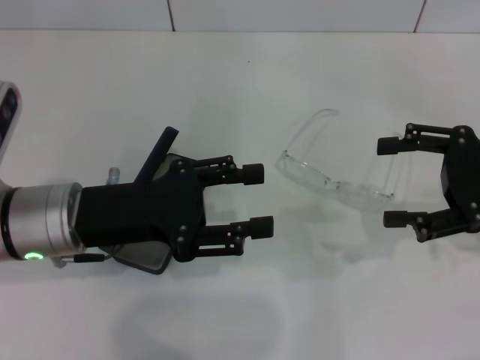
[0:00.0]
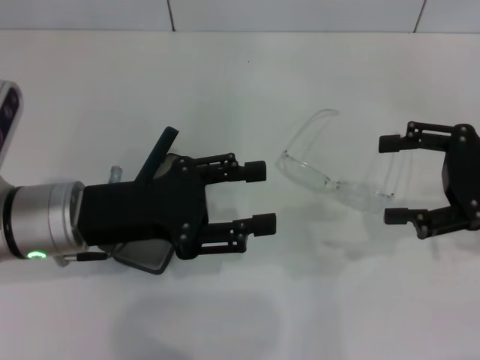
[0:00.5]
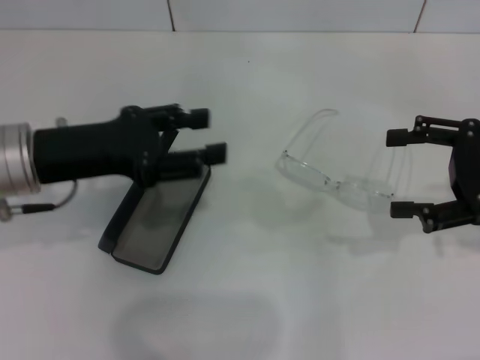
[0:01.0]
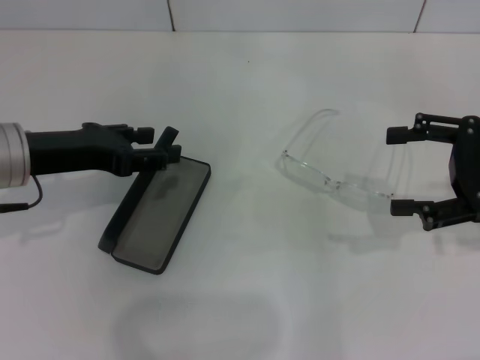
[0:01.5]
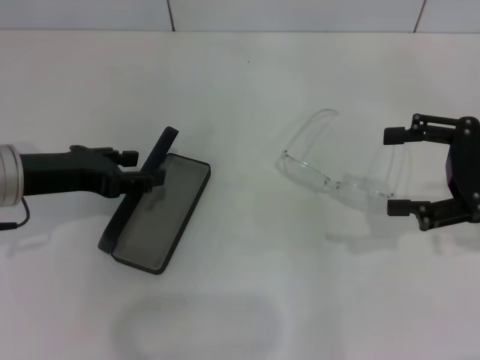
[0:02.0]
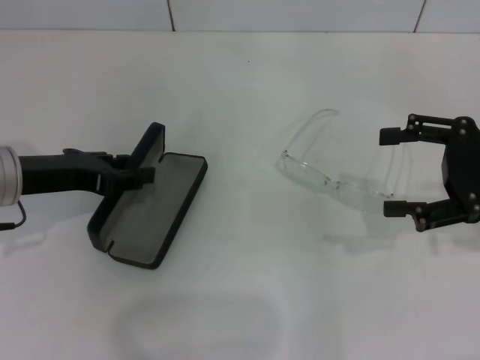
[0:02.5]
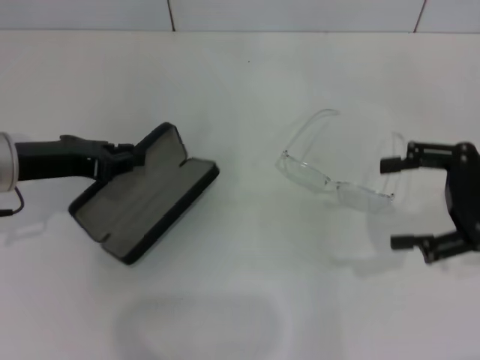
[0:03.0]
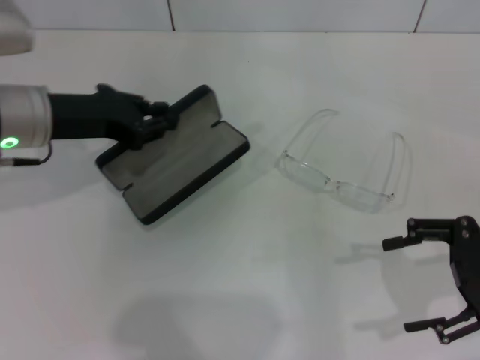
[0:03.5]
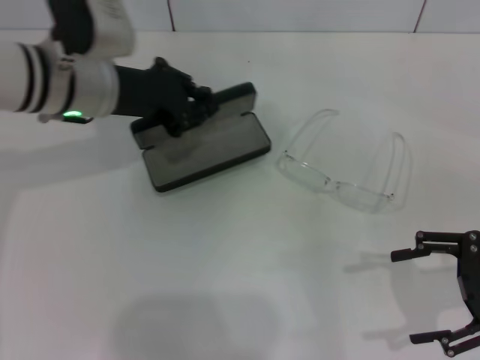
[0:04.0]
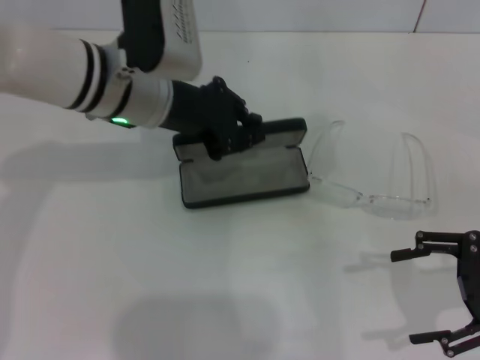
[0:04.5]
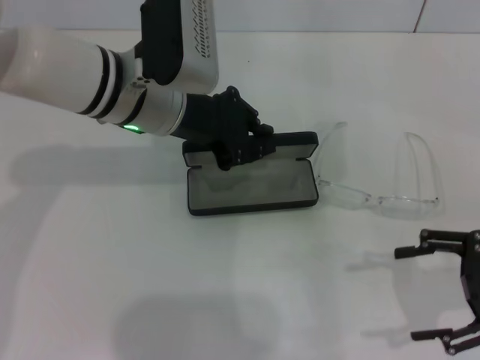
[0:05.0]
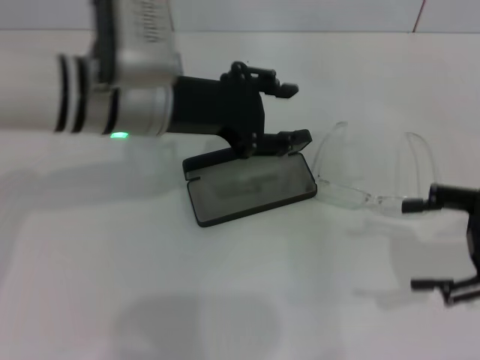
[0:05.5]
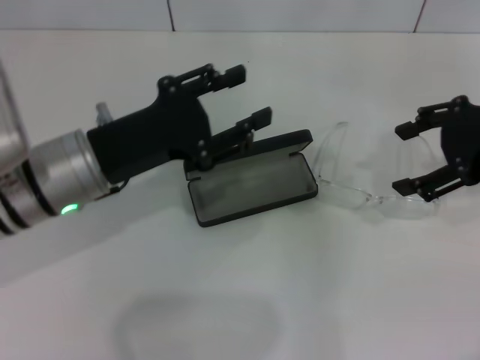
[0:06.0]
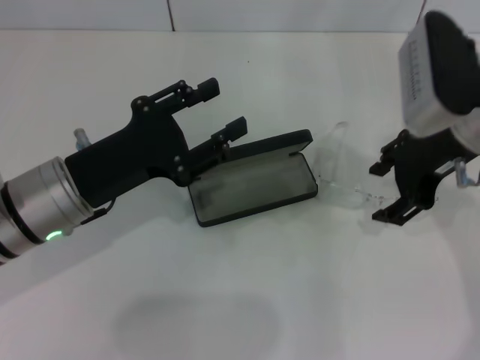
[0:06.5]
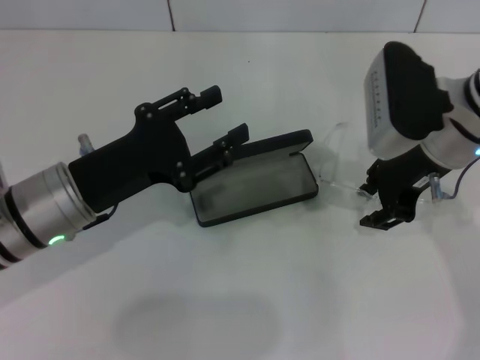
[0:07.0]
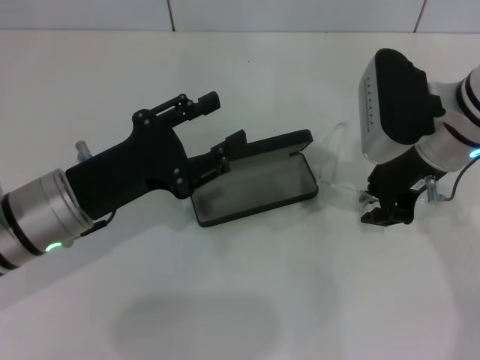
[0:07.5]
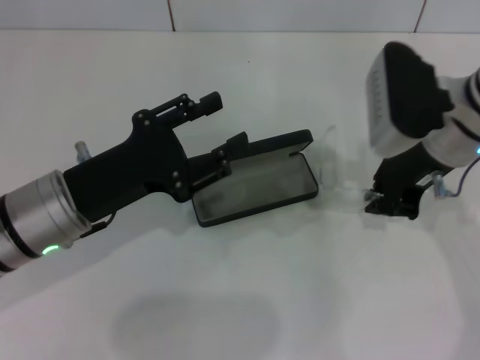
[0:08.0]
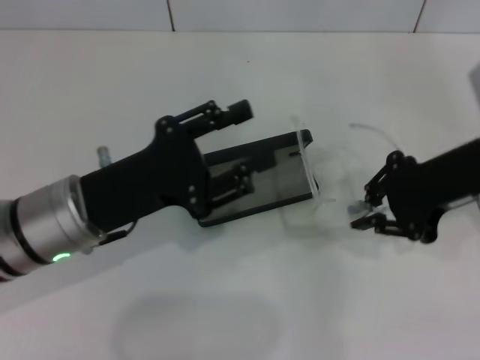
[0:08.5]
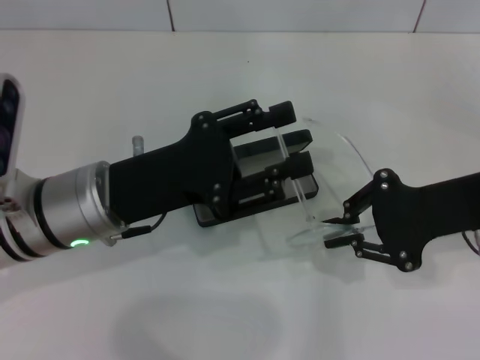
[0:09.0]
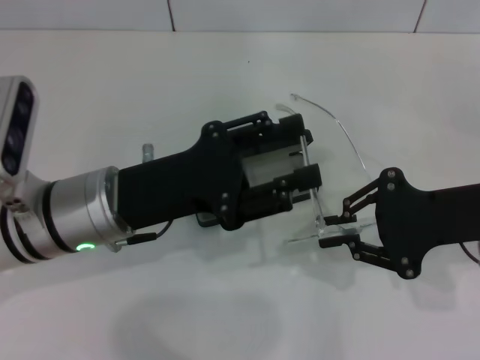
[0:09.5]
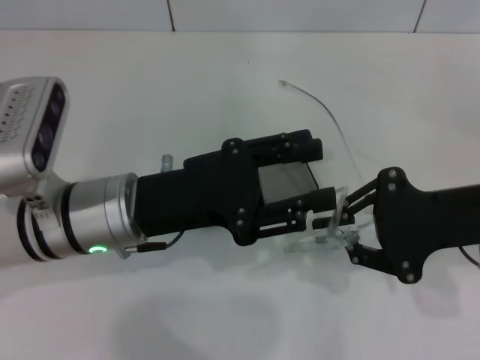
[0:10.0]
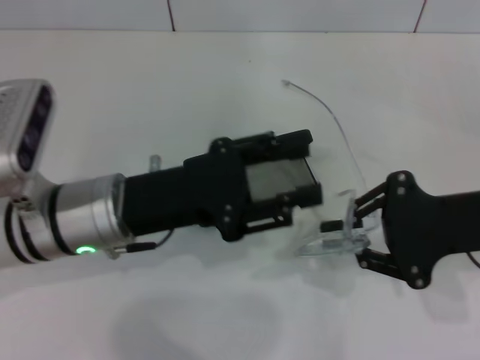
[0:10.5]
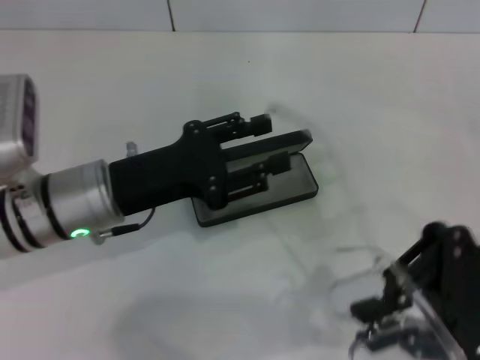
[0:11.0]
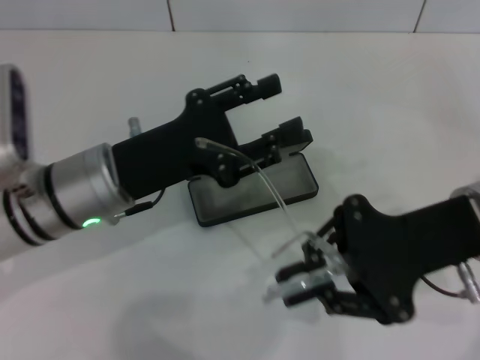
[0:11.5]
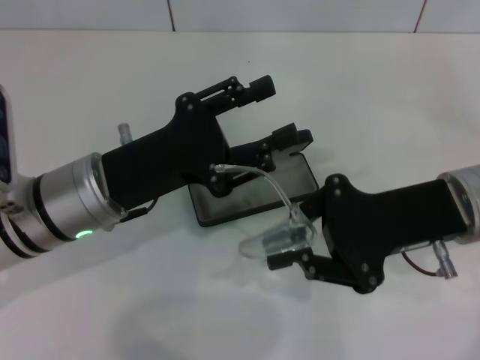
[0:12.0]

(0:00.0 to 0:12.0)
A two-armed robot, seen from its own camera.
Step, 0:00.0 - 0:02.5: Grab the glasses case with your left hand.
Step, 0:03.0 - 0:05.0: Place the glasses case in the center of the table with your left hand.
Step, 0:05.5 - 0:07.5: Grab the eyeglass frame with your right hand.
0:00.0 - 0:02.0: The left gripper heads to the left, covering about 5 cm.
0:02.0 - 0:04.0: The left gripper heads to the right and forward, covering roughly 10 cm, and closes, while the right gripper moves backward, approximately 5 cm.
0:04.0 - 0:06.0: The right gripper shifts some 15 cm upward and forward. The left gripper moves backward, about 10 cm, and opens its fingers.
0:06.0 - 0:08.0: The right gripper travels to the left by approximately 10 cm, and closes up.
0:08.0 - 0:10.0: The left gripper goes some 5 cm to the right, while the right gripper goes approximately 10 cm backward and to the right.
0:10.0 - 0:12.0: The right gripper shifts by approximately 5 cm.

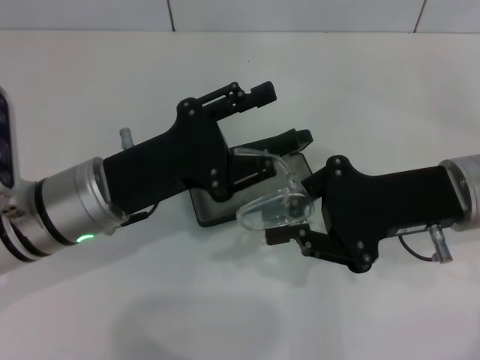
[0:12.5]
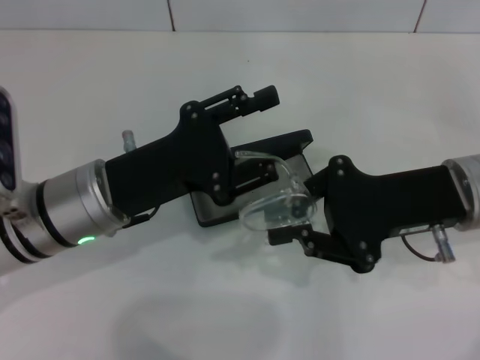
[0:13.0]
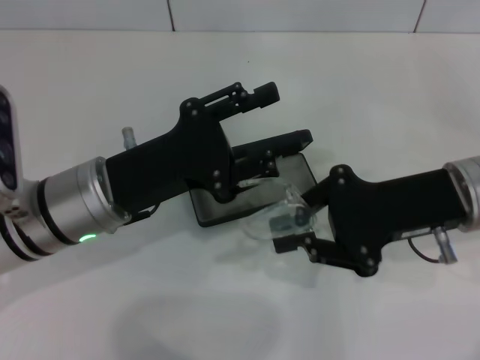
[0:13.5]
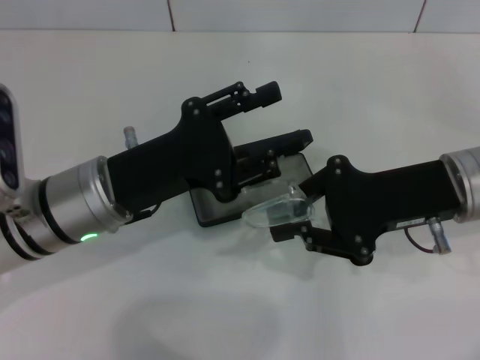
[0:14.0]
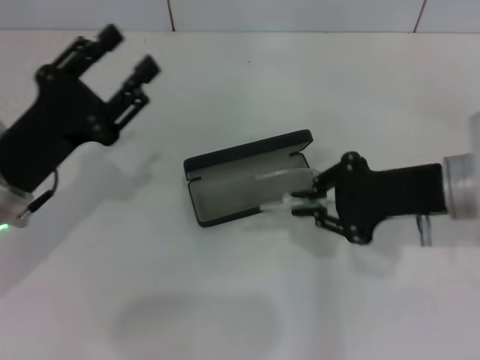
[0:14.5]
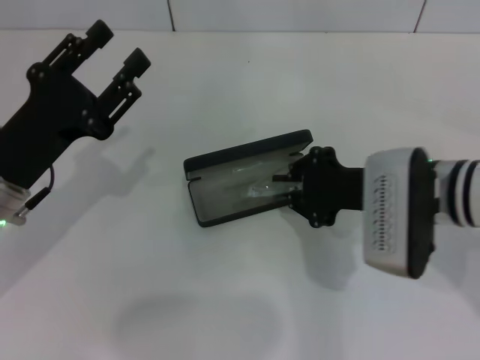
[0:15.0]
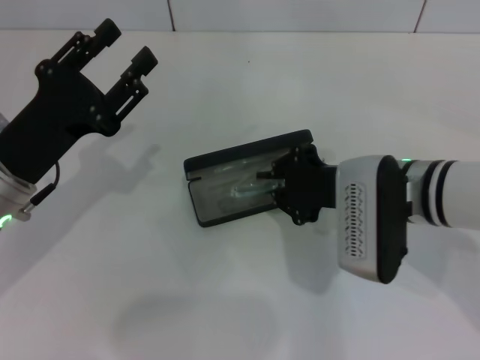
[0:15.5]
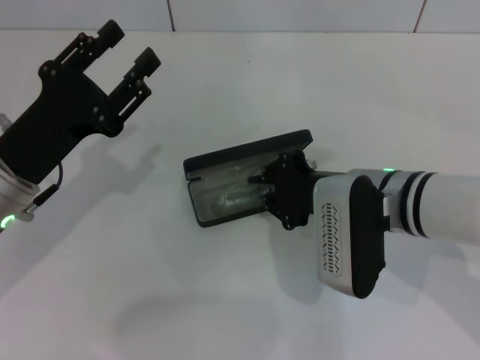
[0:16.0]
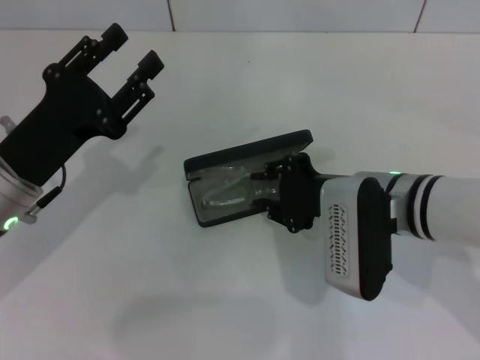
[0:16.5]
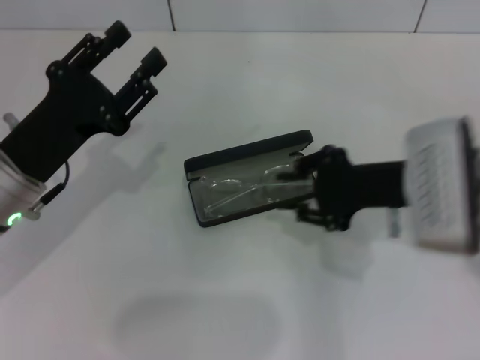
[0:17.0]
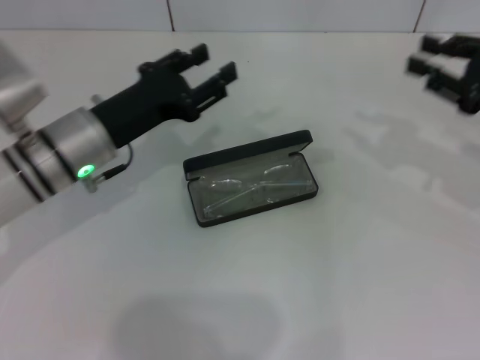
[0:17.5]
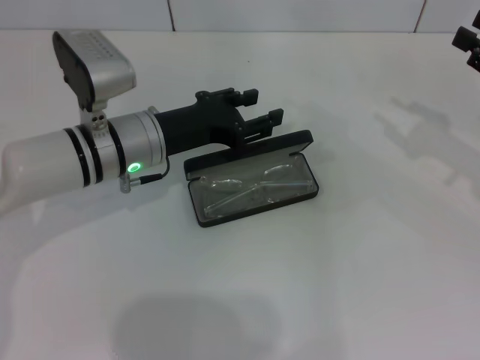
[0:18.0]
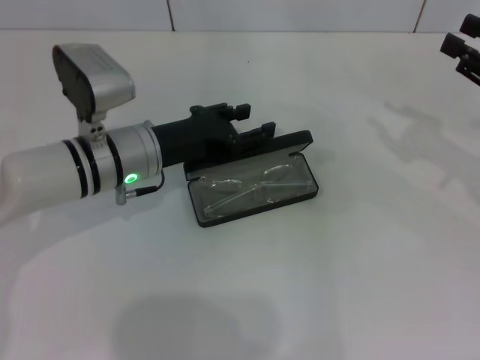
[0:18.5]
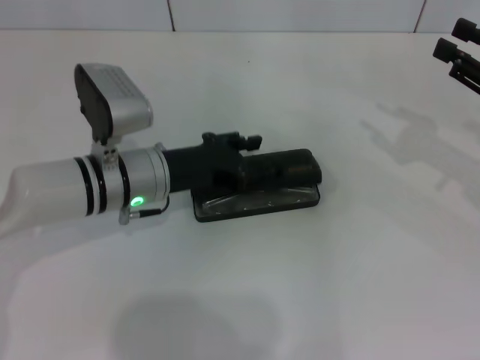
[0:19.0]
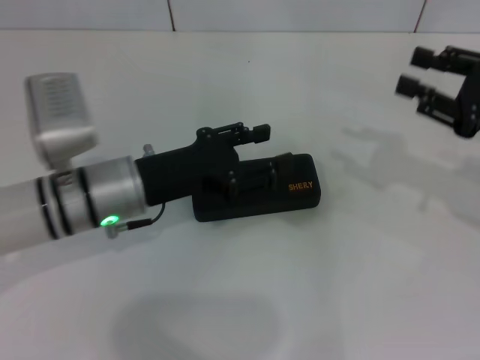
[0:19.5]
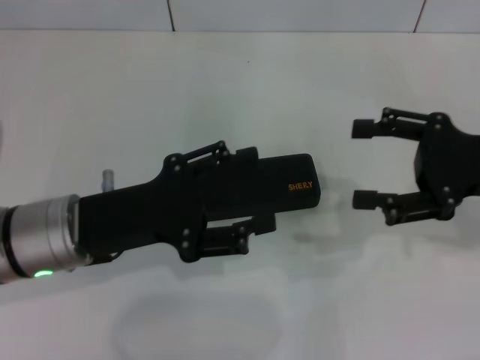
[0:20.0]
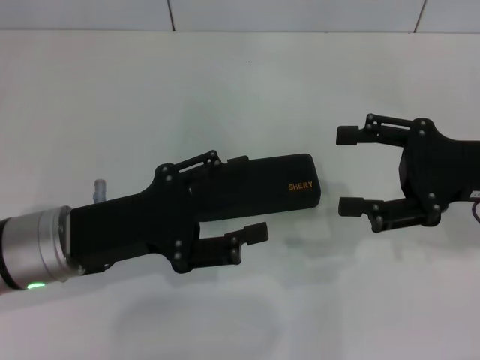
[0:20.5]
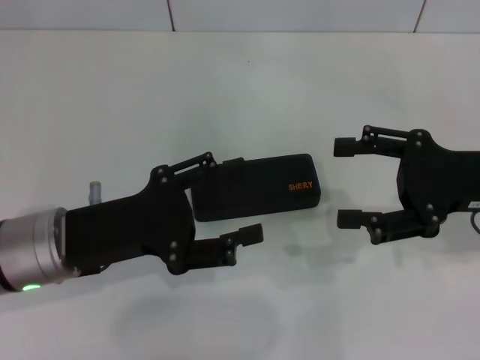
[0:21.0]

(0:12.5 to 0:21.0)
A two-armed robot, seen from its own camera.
Step, 0:14.0 - 0:16.5: Put the glasses into the case with your right hand.
Step, 0:17.0 - 0:19.0: Close the glasses case with your left hand.
0:12.5 - 0:14.5: The left gripper is displaced to the left by about 5 cm.
0:14.5 - 0:16.5: The right gripper shifts approximately 10 cm to the left.
0:16.5 - 0:19.0: The right gripper shifts some 20 cm to the right. Meanwhile the left gripper goes some 10 cm to the right and forward.
0:19.0 - 0:21.0: The left gripper goes about 10 cm backward and to the left. Meanwhile the right gripper goes about 5 cm to the left, and opens its fingers.

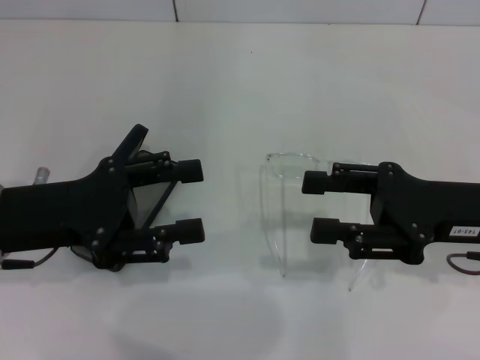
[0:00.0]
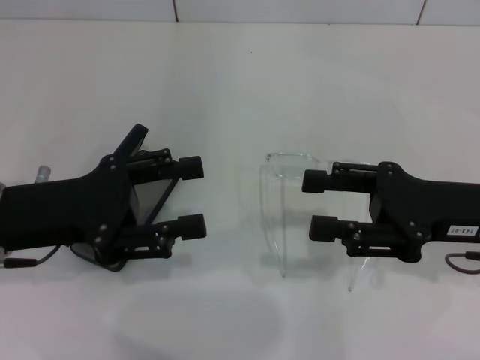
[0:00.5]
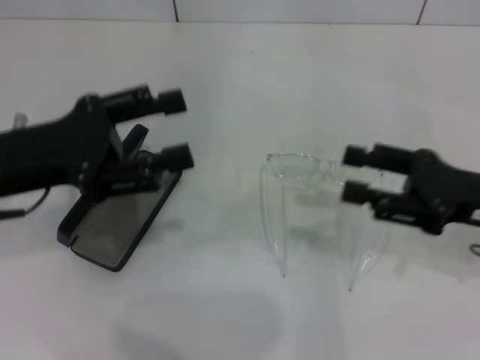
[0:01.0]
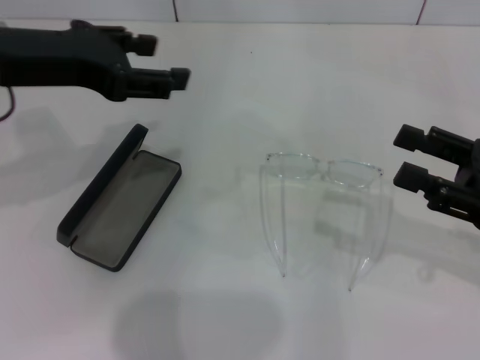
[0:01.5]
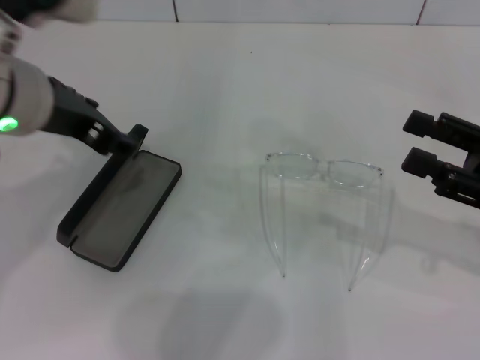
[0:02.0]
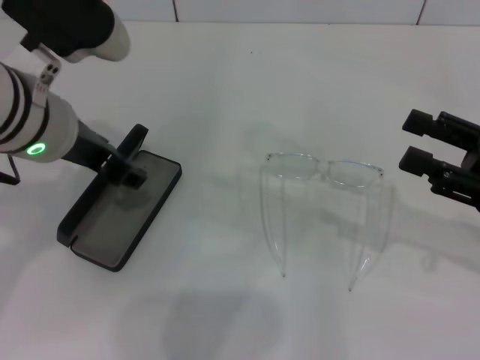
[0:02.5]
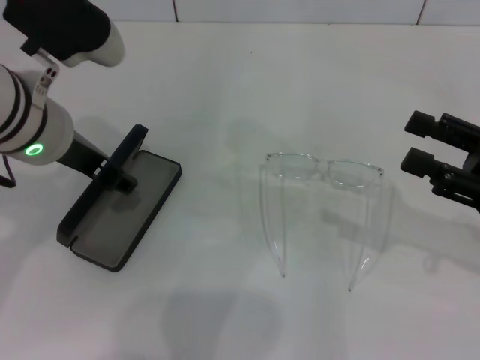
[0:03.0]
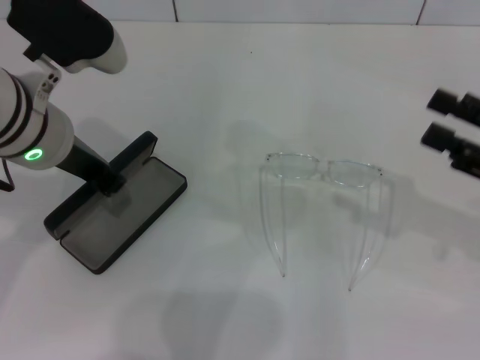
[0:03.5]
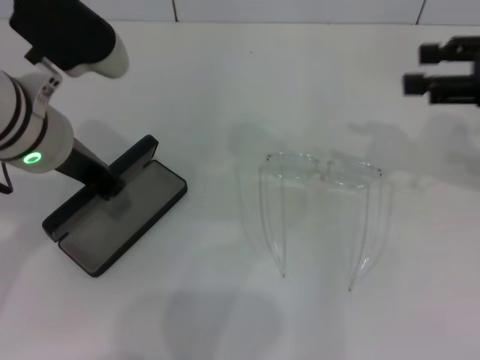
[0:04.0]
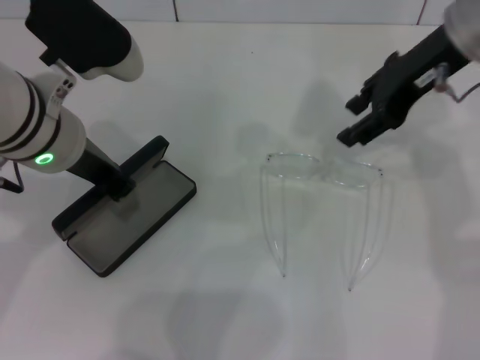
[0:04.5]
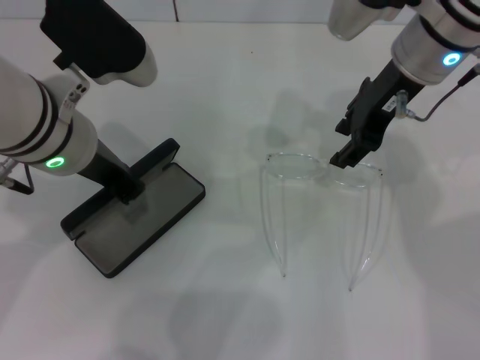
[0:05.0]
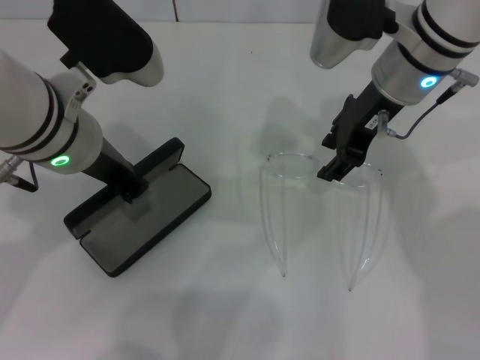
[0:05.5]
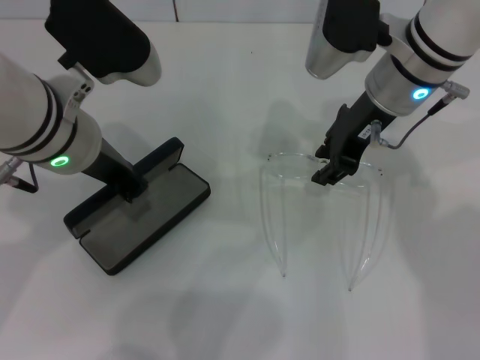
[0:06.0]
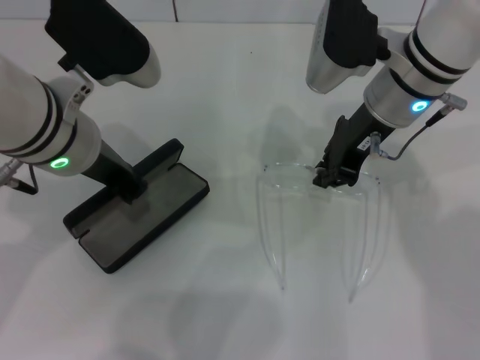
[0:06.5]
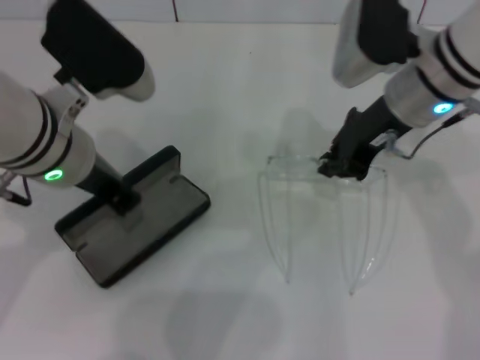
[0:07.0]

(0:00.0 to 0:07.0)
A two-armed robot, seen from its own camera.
Step, 0:00.0 - 0:03.5: Grab the glasses case with your left hand.
Step, 0:04.0 - 0:06.5: Grab the eyeglass frame with your right hand.
0:00.0 - 0:02.0: The right gripper moves to the right, some 5 cm, while the left gripper heads upward, to the right and forward, covering approximately 15 cm.
0:02.0 - 0:03.5: The left gripper closes its fingers.
0:03.5 - 0:05.0: The right gripper travels to the left, forward and upward by roughly 25 cm.
0:05.0 - 0:07.0: The right gripper closes its fingers.
